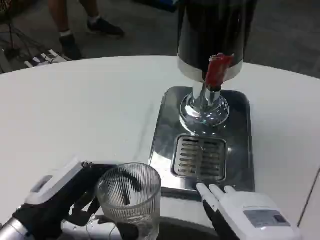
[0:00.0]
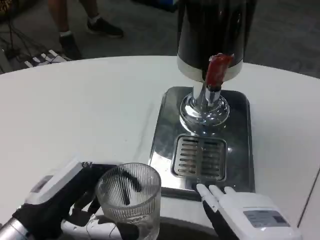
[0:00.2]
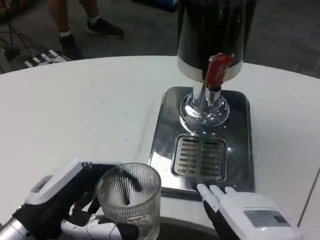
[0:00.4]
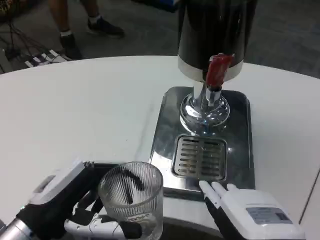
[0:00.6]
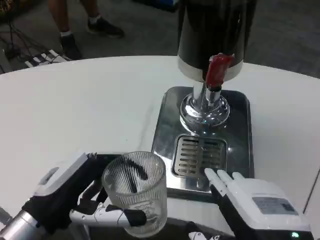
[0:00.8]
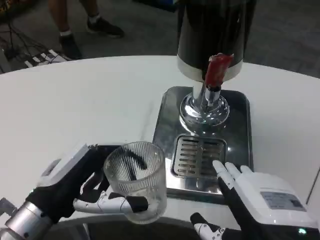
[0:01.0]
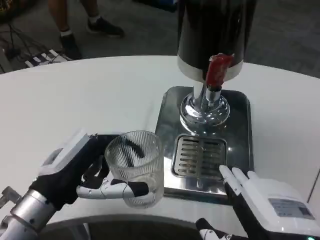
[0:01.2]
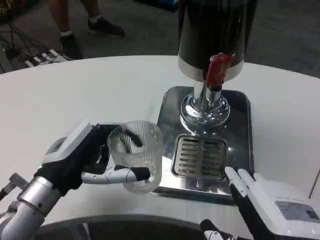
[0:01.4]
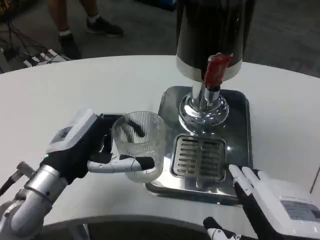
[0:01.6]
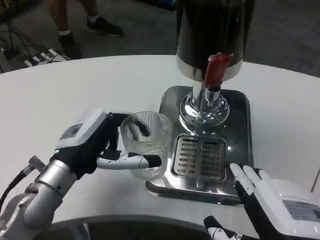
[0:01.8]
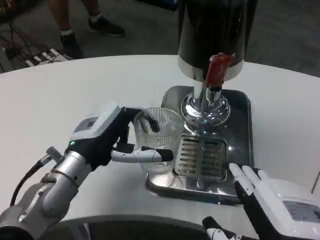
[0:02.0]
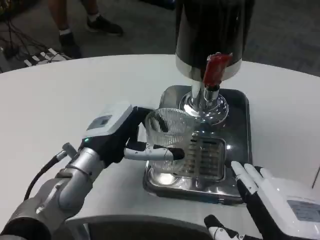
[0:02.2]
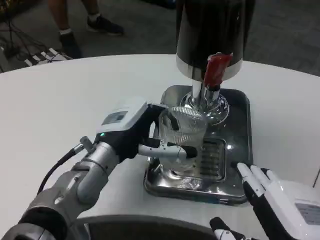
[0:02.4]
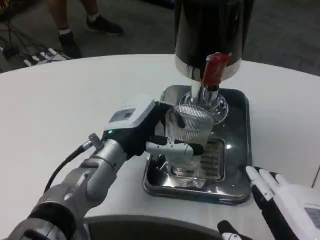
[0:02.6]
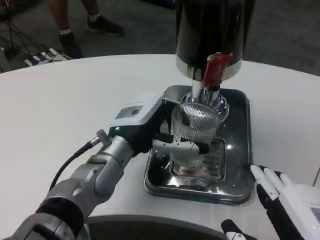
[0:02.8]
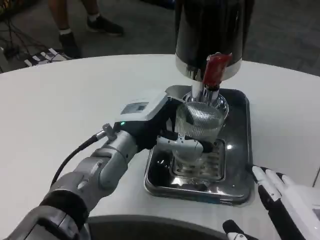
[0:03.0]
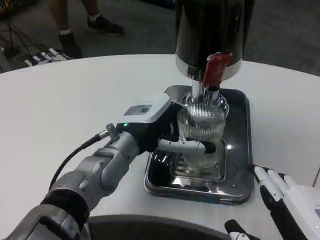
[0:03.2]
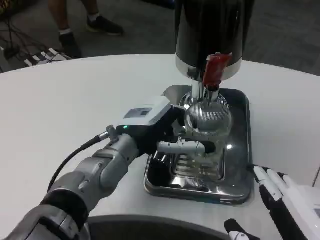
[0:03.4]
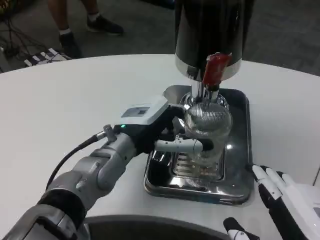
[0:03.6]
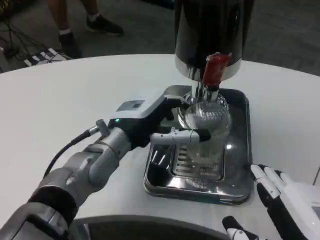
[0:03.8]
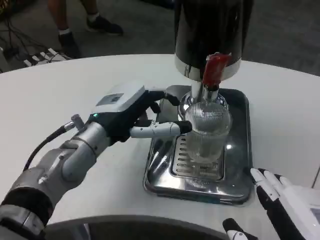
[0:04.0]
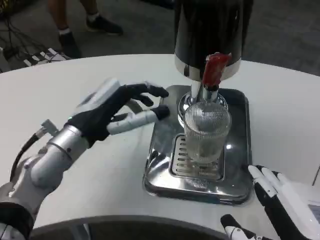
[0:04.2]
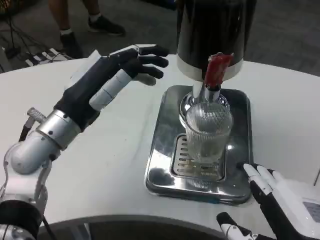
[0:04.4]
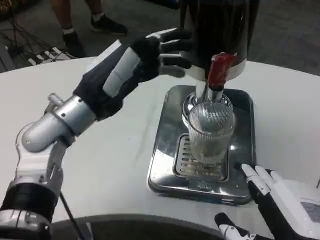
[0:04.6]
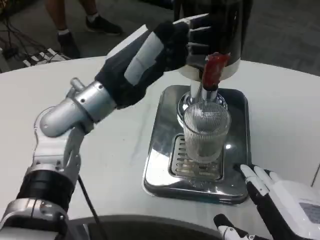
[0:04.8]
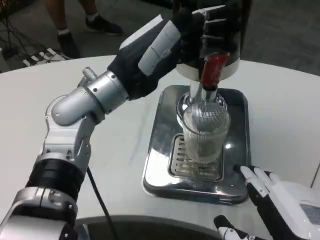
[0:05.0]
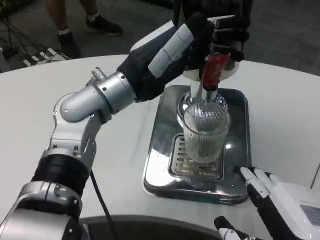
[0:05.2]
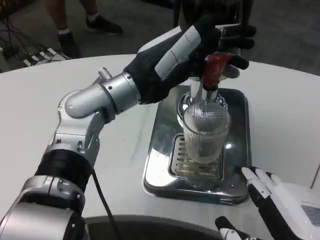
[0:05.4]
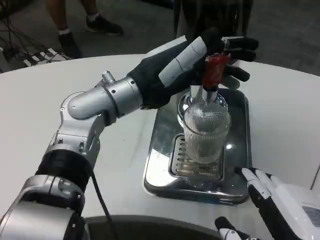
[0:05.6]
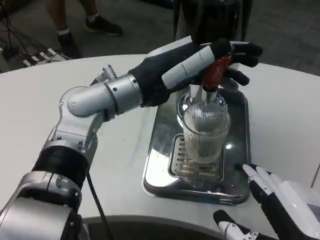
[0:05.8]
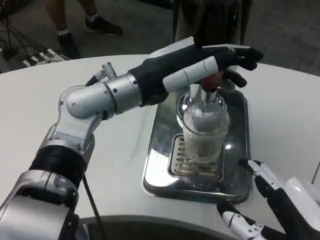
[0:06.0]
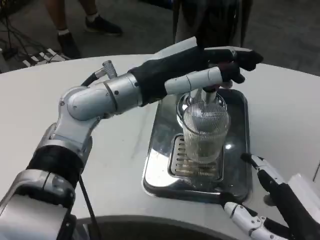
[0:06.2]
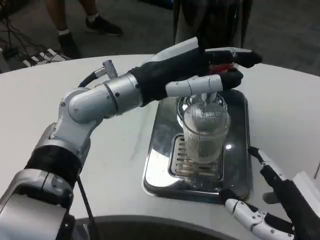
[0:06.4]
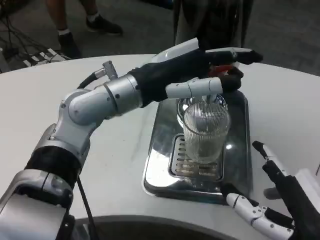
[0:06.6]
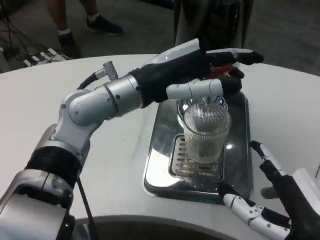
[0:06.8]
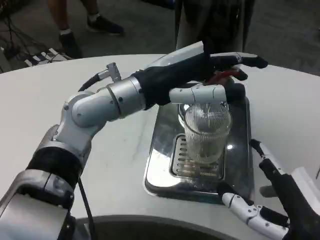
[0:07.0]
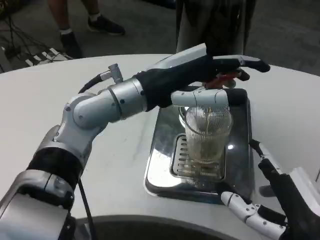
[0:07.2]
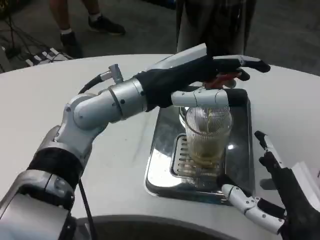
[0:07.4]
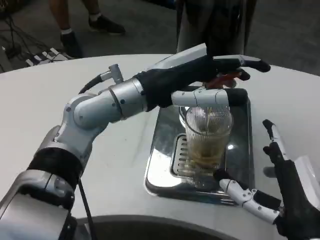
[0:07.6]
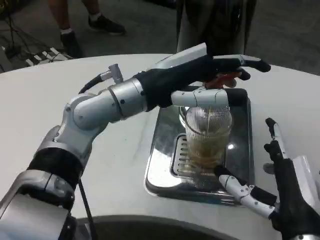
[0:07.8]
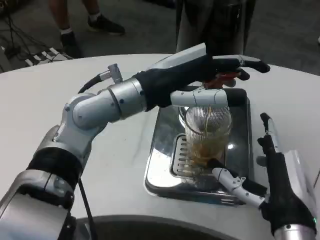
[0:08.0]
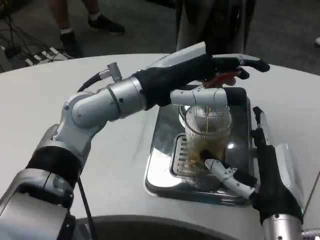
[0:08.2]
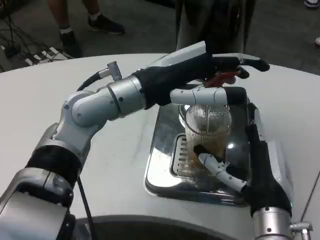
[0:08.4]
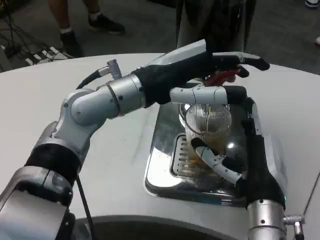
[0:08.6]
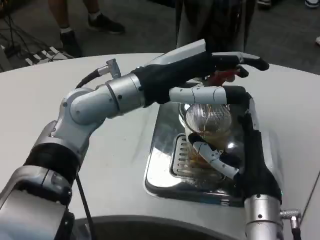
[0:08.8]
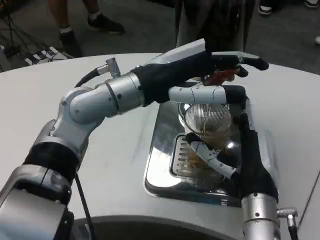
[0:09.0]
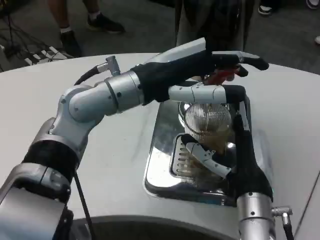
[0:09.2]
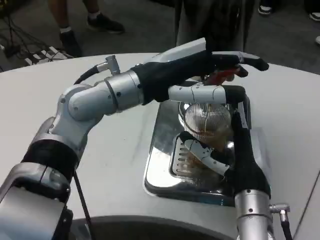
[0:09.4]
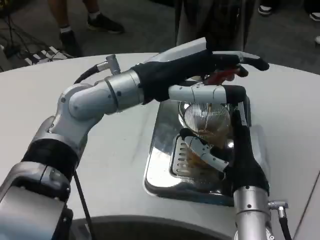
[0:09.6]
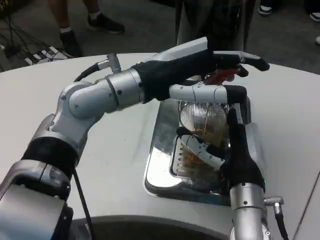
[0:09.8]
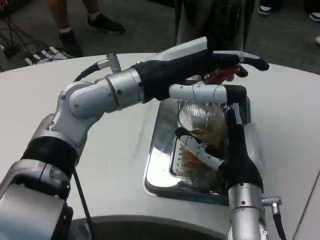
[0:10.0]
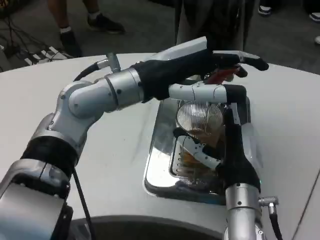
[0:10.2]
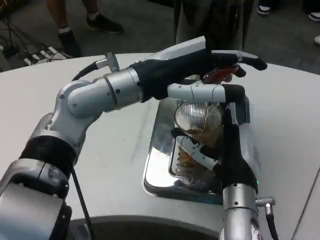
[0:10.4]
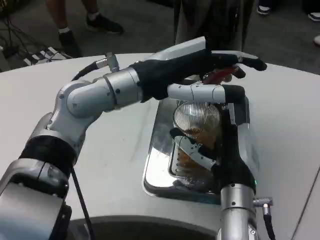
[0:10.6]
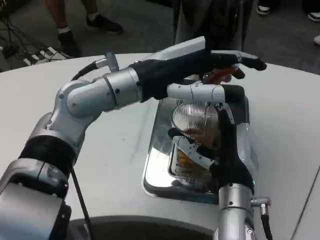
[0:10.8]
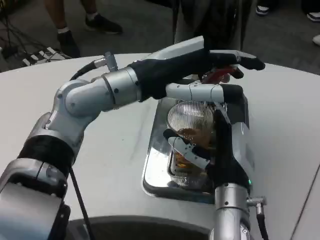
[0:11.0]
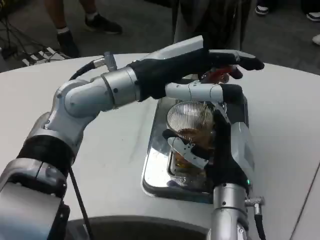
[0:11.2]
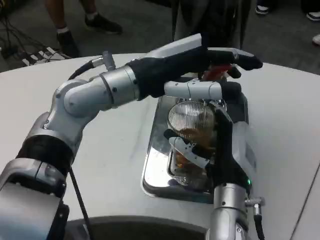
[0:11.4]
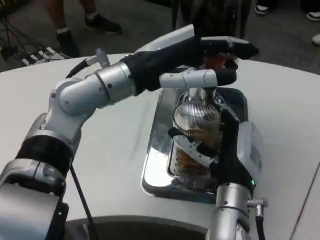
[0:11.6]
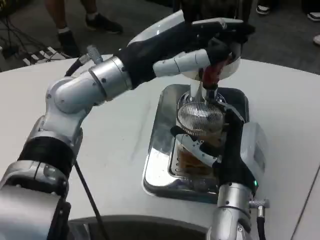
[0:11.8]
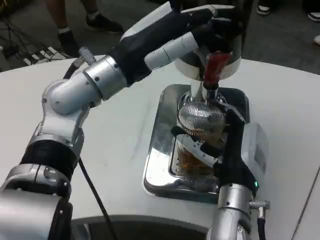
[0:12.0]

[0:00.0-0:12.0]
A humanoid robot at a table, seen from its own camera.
Task of the whole recording: Grasp the cup under the faucet to collect the drink, then remove the cup.
0:00.0 to 0:01.6: The left hand goes roughly 10 cm forward.
0:01.6 to 0:03.0: The left hand moves to the right and forward, approximately 10 cm.
0:03.0 to 0:04.4: The left hand moves to the left, roughly 10 cm.
0:04.4 to 0:06.0: The left hand heads to the right and upward, covering about 10 cm.
0:06.0 to 0:07.6: The right hand heads forward, covering roughly 5 cm.
0:07.6 to 0:09.0: The right hand is displaced forward by about 10 cm.

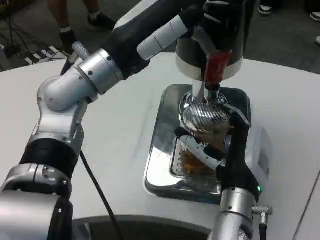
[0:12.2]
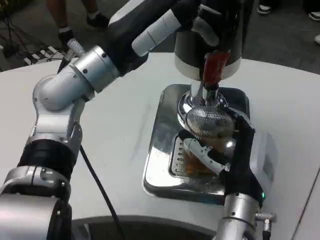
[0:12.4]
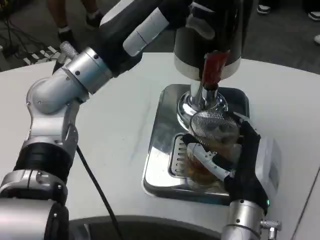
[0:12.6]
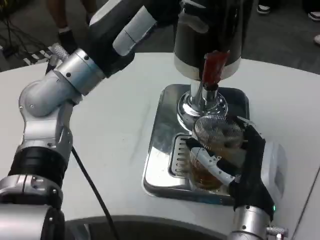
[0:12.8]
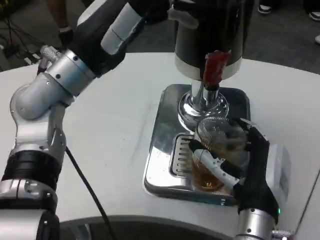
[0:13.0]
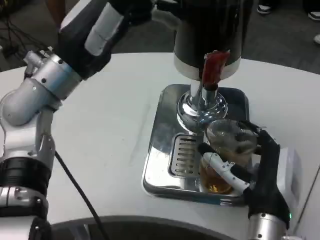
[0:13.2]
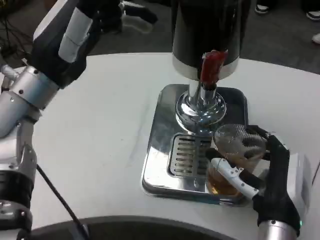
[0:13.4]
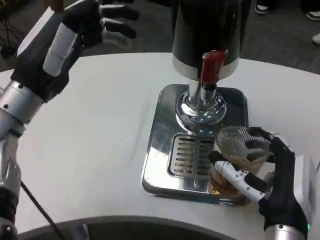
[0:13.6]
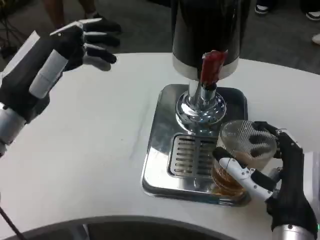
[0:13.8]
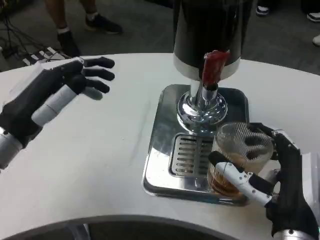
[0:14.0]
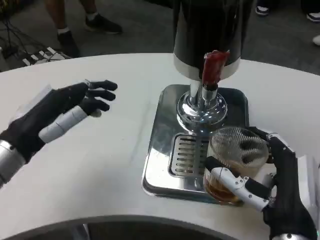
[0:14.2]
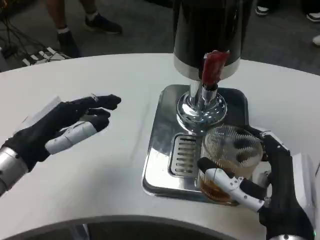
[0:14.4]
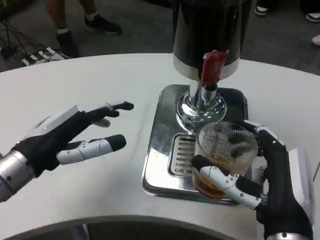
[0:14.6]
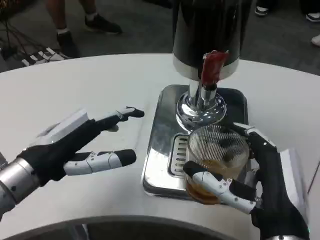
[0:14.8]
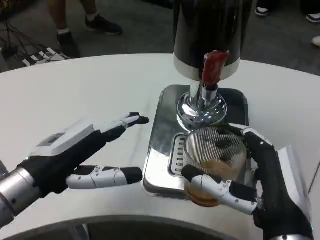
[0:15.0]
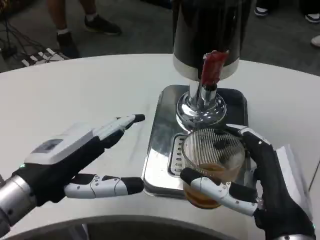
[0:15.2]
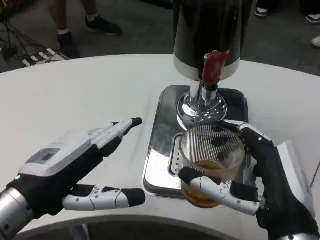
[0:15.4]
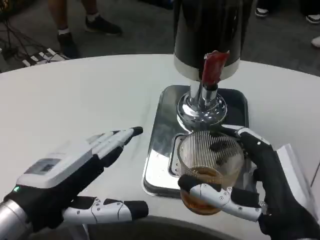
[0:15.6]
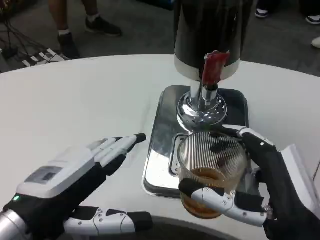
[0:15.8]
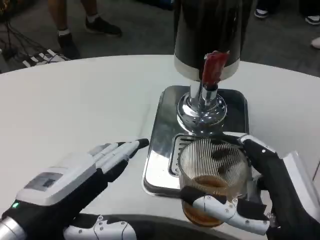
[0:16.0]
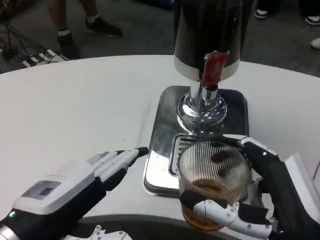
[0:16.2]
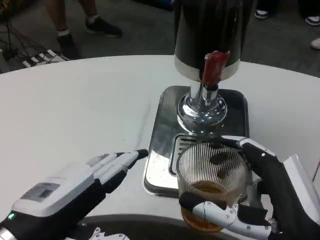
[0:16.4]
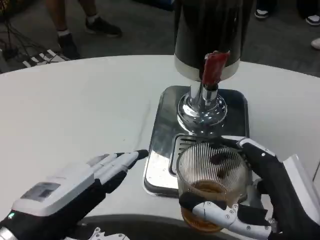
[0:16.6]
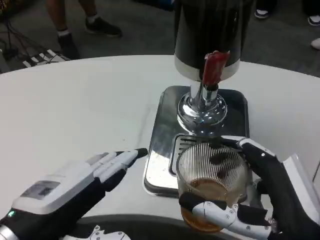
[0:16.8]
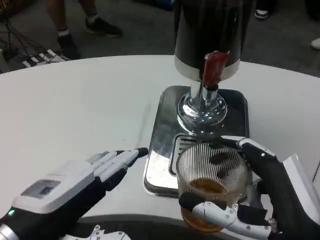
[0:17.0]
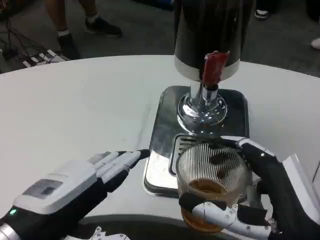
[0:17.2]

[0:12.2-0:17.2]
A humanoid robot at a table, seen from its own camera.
Task of the whole recording: Grasp the cup under the faucet to collect the drink, then remove the cup.
0:12.2 to 0:13.8: The left hand is displaced to the left and downward by roughly 15 cm. Meanwhile the right hand moves backward and to the right, approximately 10 cm.
0:13.8 to 0:15.6: The left hand heads backward, covering about 10 cm. Meanwhile the right hand travels backward by some 5 cm.

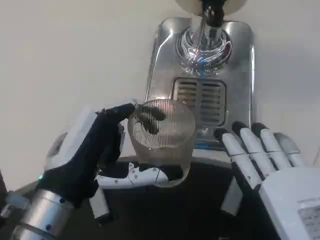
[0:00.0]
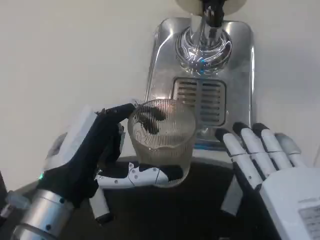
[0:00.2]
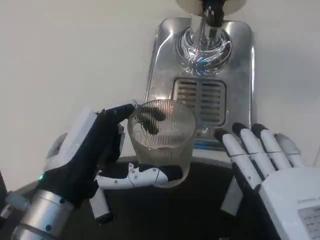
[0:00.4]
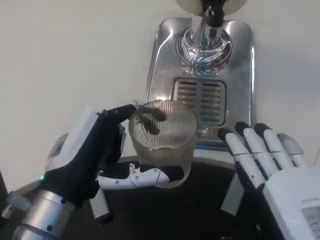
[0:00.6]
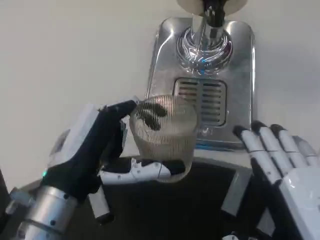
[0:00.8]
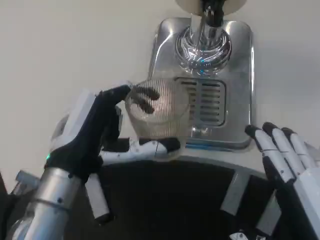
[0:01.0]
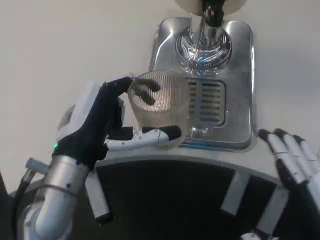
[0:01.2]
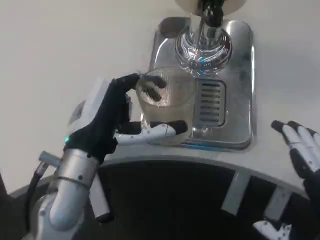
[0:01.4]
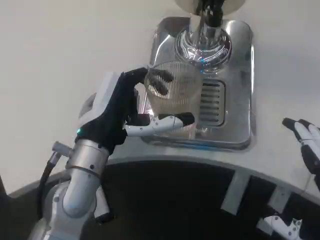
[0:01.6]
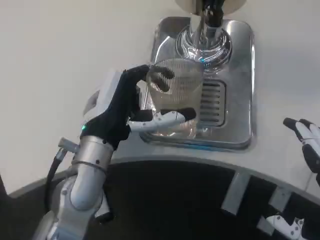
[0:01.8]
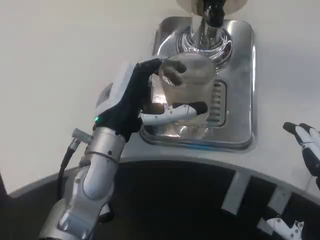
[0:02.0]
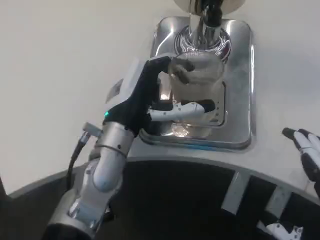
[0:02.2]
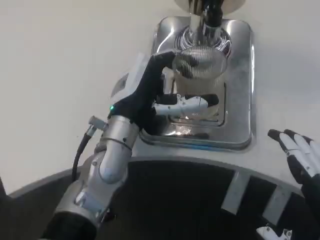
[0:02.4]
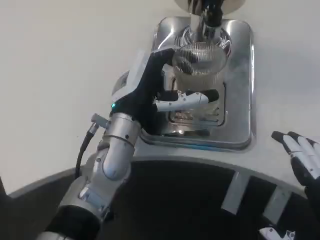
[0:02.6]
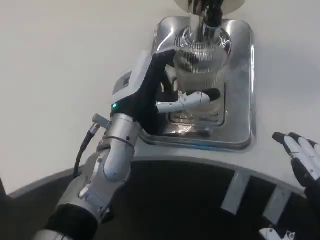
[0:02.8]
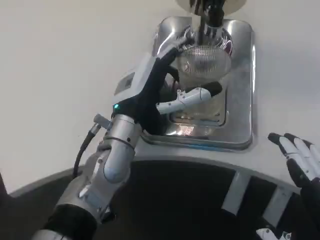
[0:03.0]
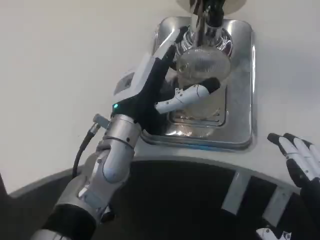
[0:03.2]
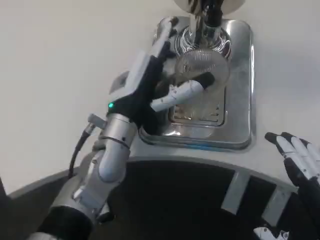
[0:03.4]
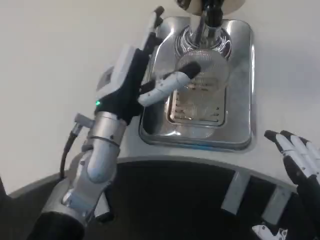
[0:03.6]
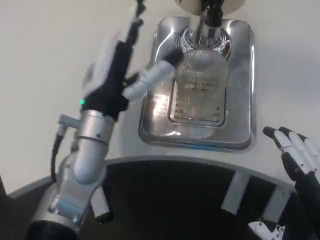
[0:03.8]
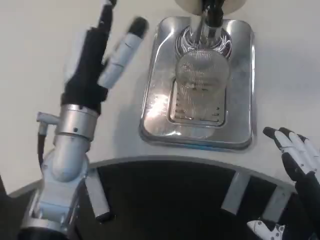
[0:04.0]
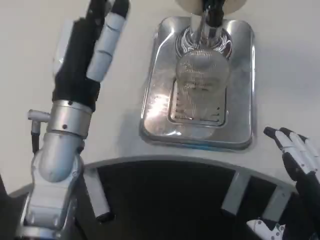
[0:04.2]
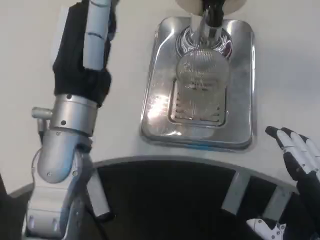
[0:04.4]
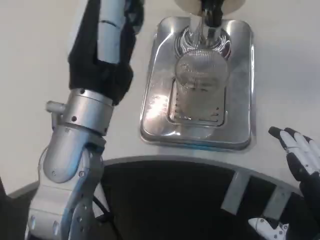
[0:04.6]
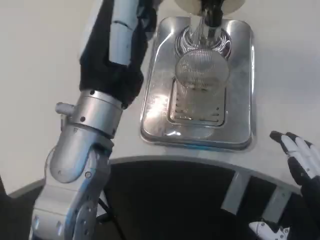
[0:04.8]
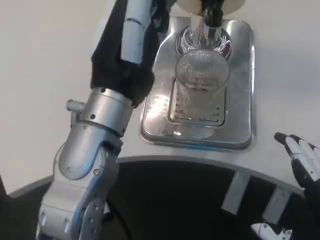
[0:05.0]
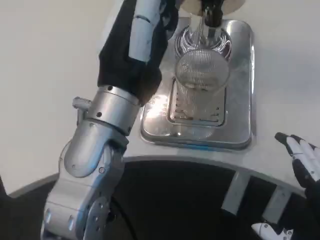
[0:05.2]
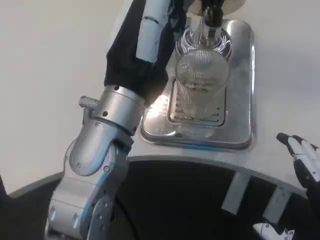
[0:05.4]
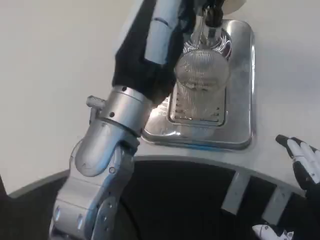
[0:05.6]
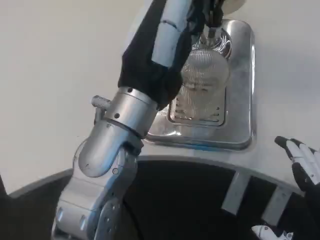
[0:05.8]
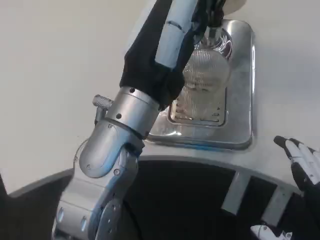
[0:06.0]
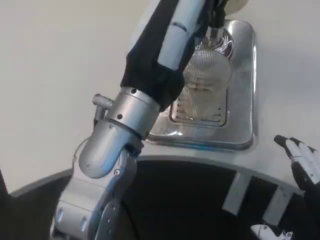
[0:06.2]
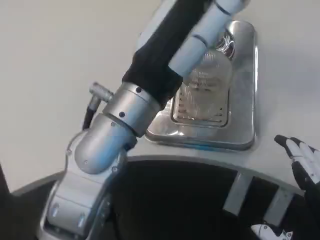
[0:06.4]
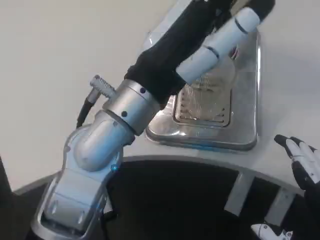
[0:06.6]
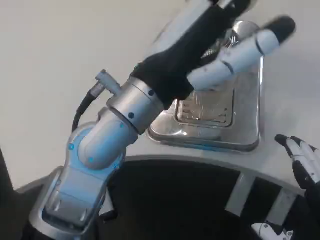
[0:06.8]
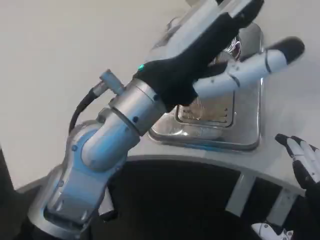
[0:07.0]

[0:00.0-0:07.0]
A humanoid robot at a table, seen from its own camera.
Task of the whole recording: Grasp the cup under the faucet to collect the drink, then remove the cup.
0:00.0 to 0:01.4: The left hand shifts about 5 cm forward.
0:01.4 to 0:02.8: The left hand shifts some 5 cm forward.
0:02.8 to 0:04.2: The left hand heads upward, covering approximately 5 cm.
0:04.2 to 0:05.6: The left hand heads to the right, covering roughly 5 cm.
